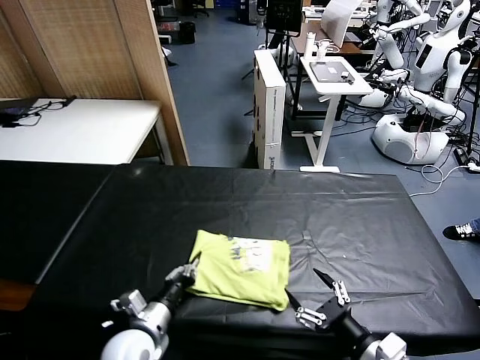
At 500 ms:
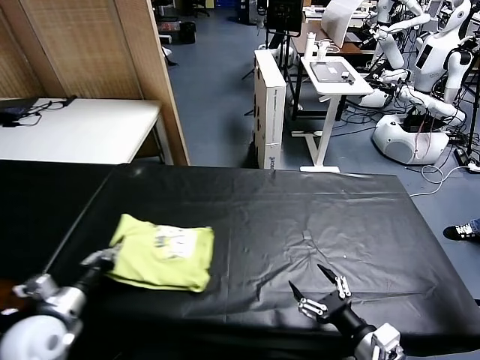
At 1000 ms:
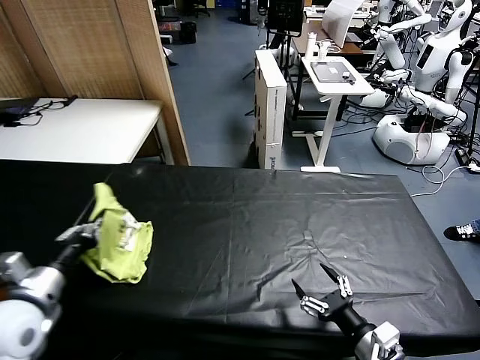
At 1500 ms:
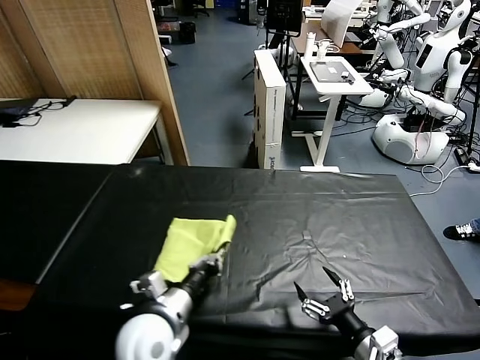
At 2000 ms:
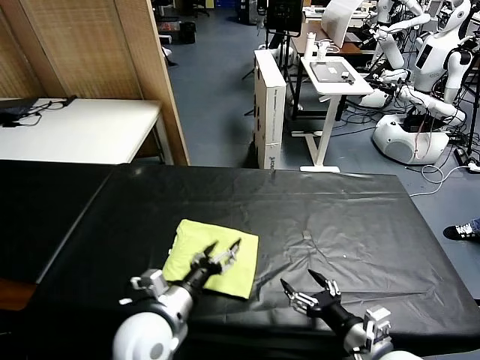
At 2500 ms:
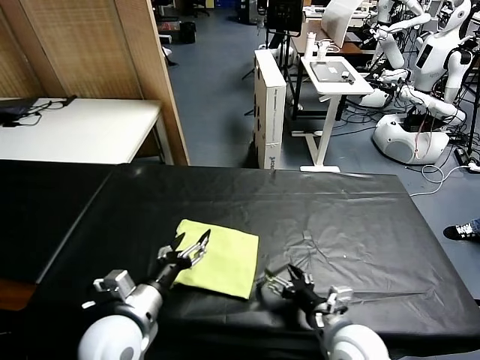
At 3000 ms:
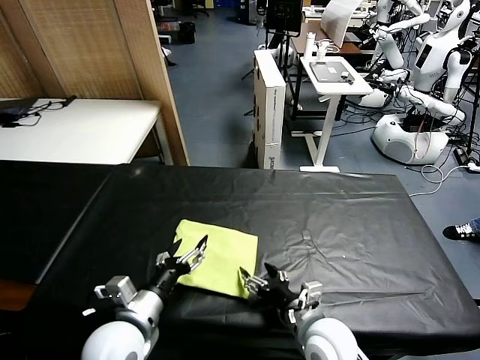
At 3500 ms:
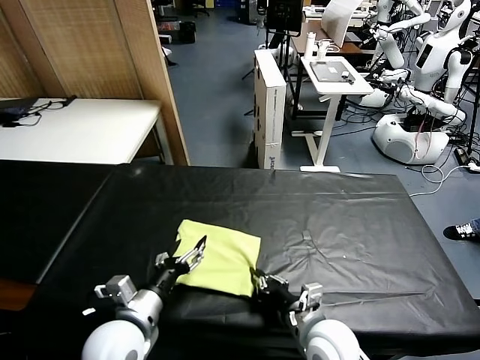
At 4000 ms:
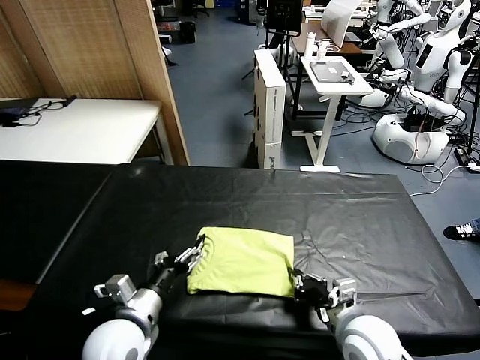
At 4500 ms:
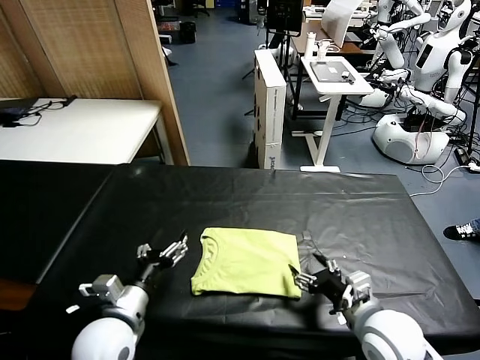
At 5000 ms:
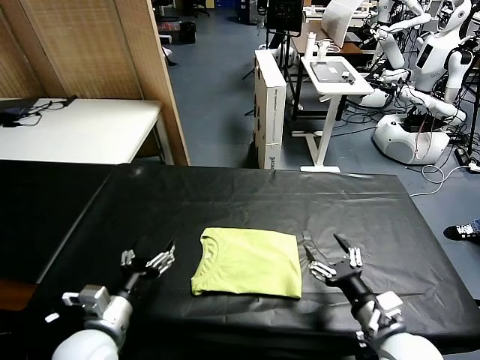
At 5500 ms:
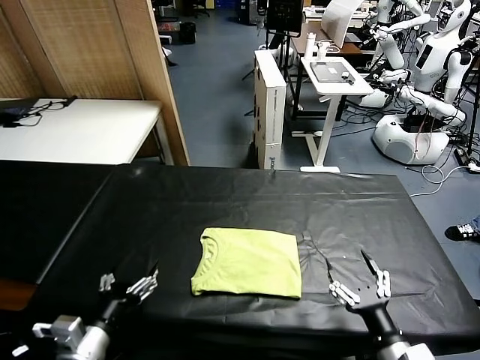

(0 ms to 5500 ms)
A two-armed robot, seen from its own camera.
Task of the whole recording: fold and organize the clothes.
Step, 2000 ms - 4000 ms: Drag the clothes to the center of the table.
0 ms - 2000 ms: The left gripper goes approximately 5 cm upward, moves some 15 cm to the left and comes back, and opens, while the right gripper changes place by some 5 cm.
2000 ms - 3500 ms: The right gripper goes some 5 cm to the left, and closes its fingers.
3500 ms - 5500 ms: The right gripper is displaced backward and to the right by some 15 cm, and opens its fingers. Meanwhile the left gripper is displaced backward and to the left by approximately 10 cm.
